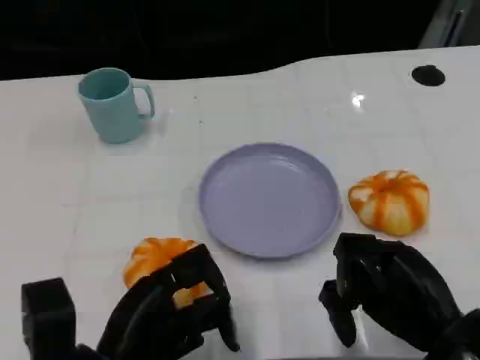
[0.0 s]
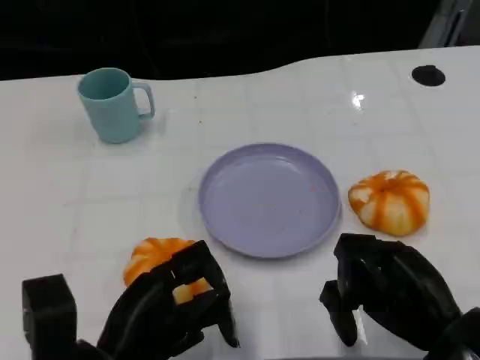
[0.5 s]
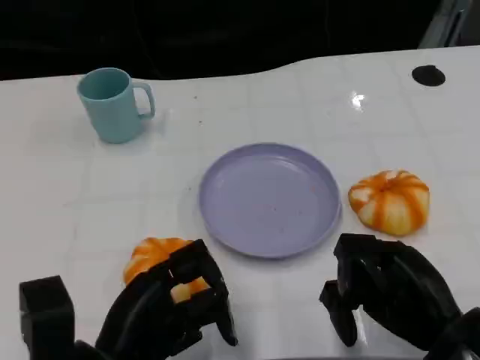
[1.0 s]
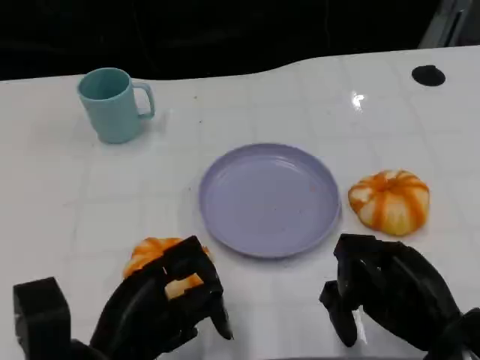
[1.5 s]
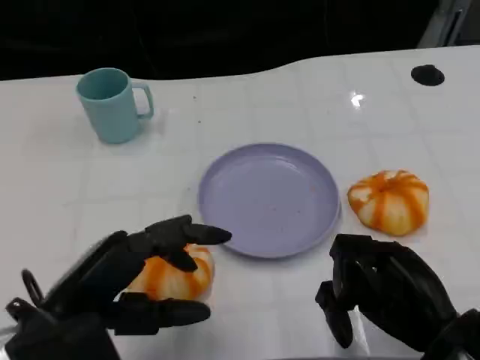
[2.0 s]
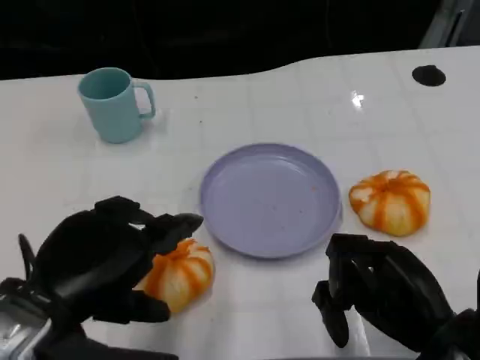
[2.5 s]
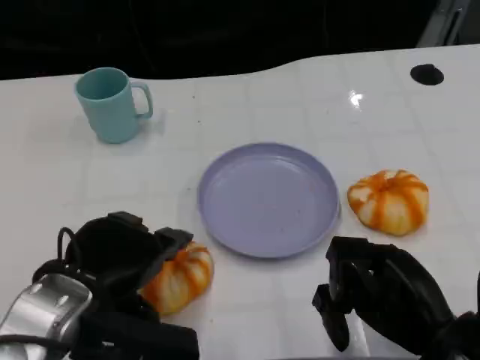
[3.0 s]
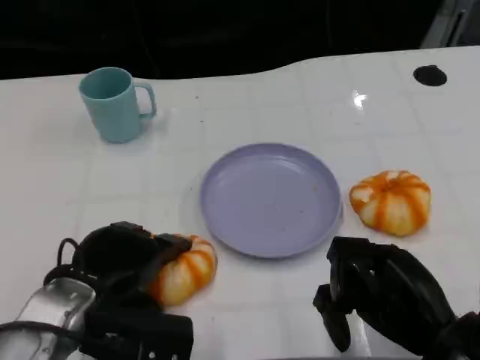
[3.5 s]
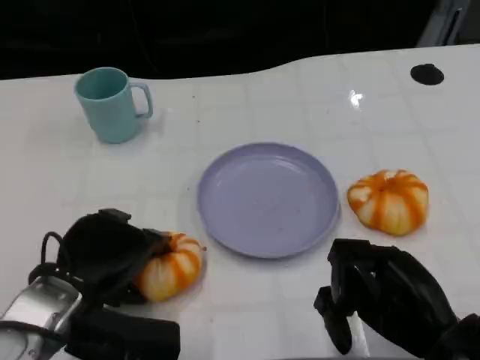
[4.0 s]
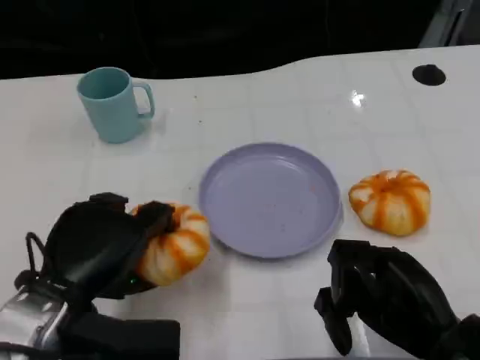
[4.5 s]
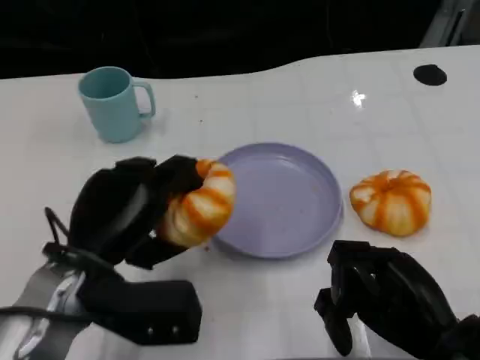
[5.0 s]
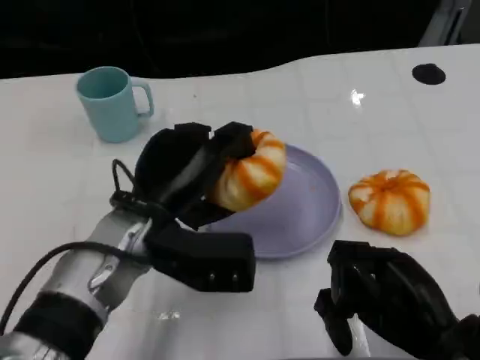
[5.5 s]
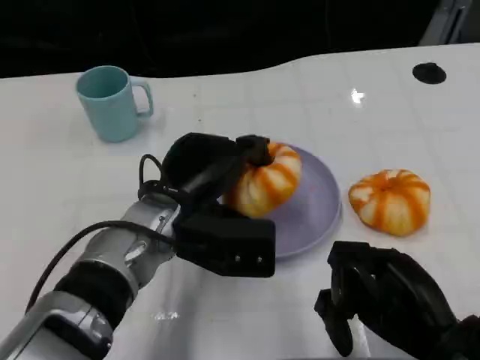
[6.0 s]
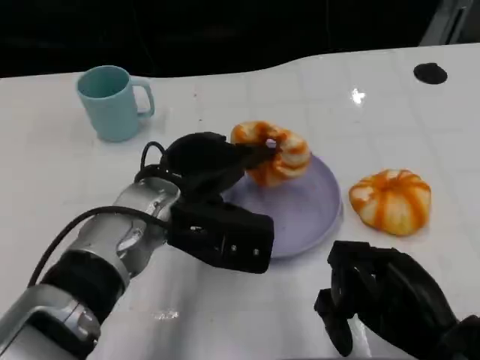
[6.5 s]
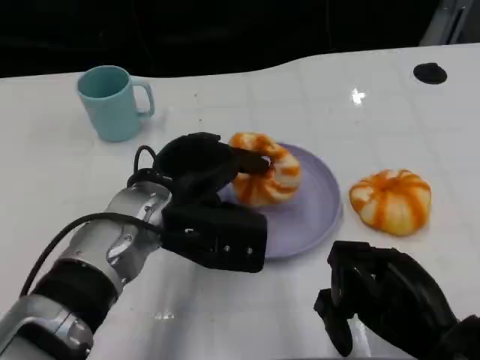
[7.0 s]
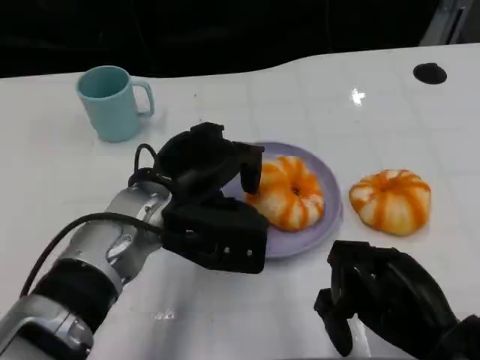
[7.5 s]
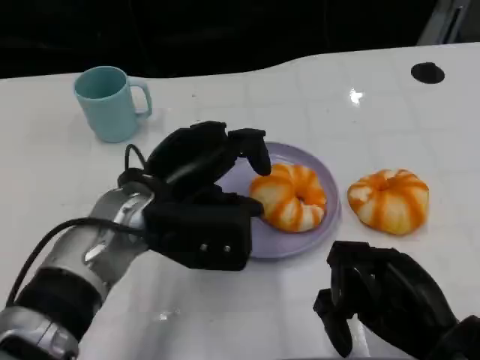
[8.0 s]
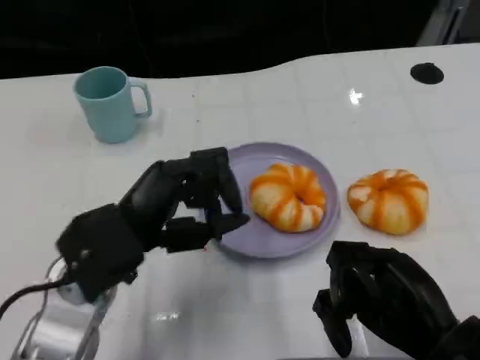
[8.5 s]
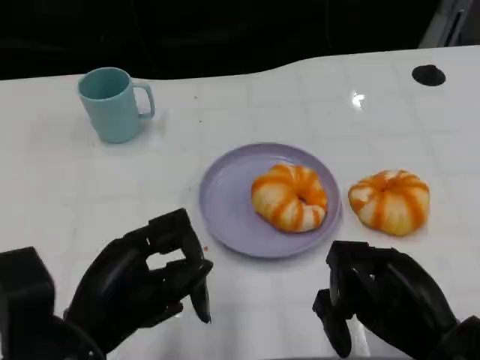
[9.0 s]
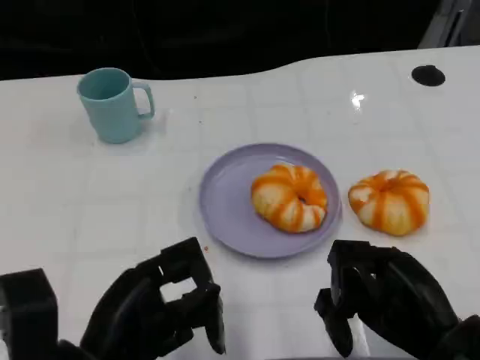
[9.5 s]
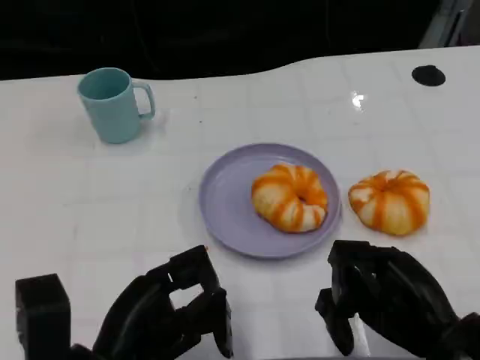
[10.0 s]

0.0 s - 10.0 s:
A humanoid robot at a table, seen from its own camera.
Task of the whole recording: Grasp the bread from the table and place it into the plate.
0.0 s - 2.0 s: The left hand is displaced upward by approximately 5 cm.
2.0 s - 4.0 s: The left hand travels forward by approximately 5 cm.
4.0 s - 6.0 s: The left hand travels to the right and forward by some 15 cm.
6.0 s - 8.0 s: The hands move only a little.
8.0 s - 10.0 s: The left hand goes about 15 cm backward and downward.

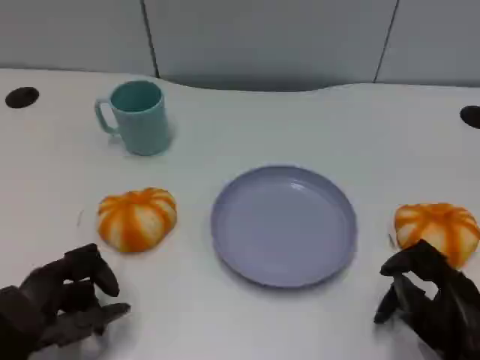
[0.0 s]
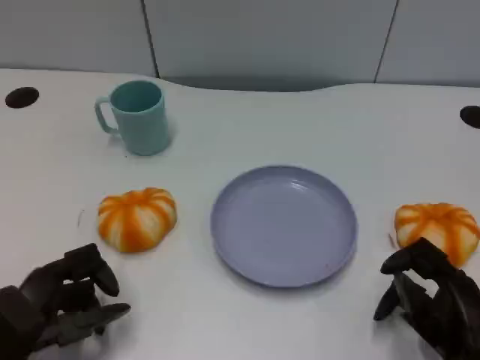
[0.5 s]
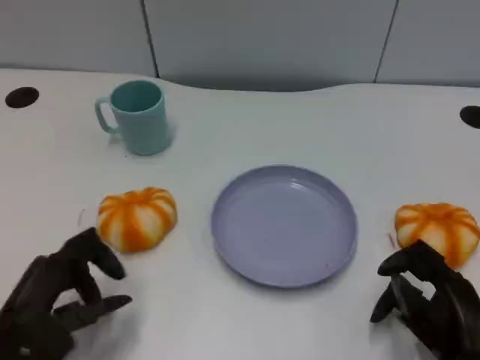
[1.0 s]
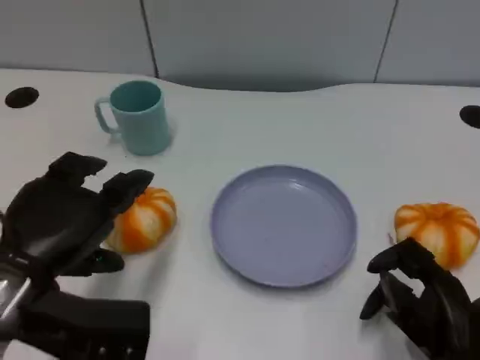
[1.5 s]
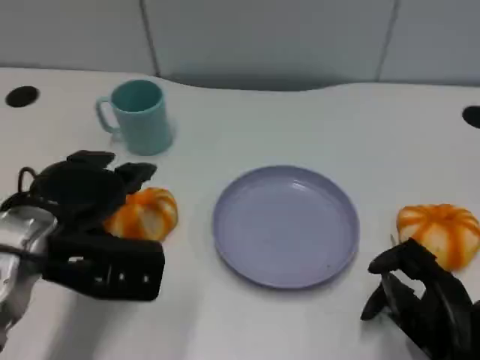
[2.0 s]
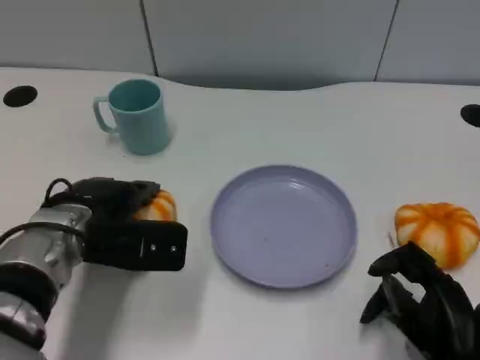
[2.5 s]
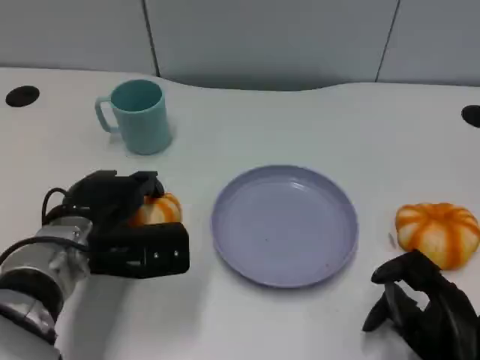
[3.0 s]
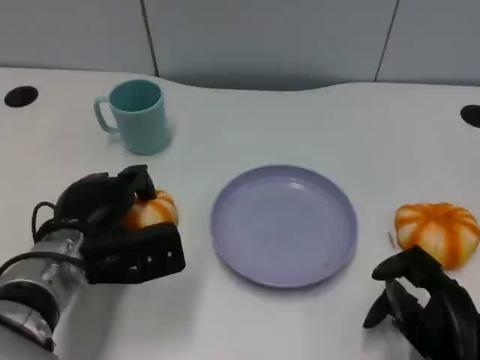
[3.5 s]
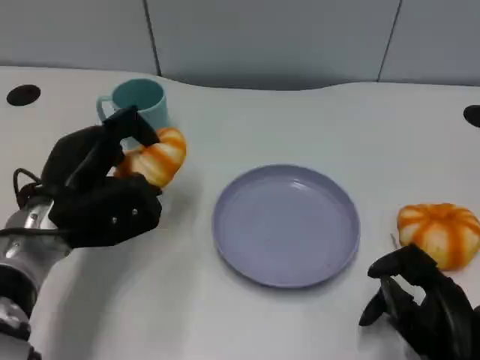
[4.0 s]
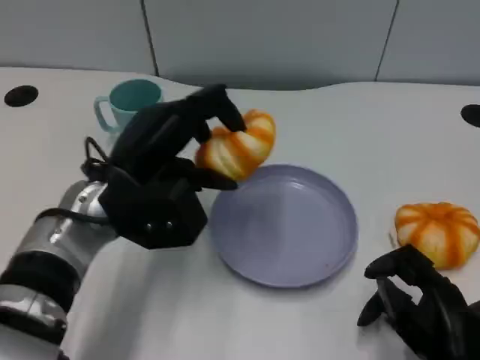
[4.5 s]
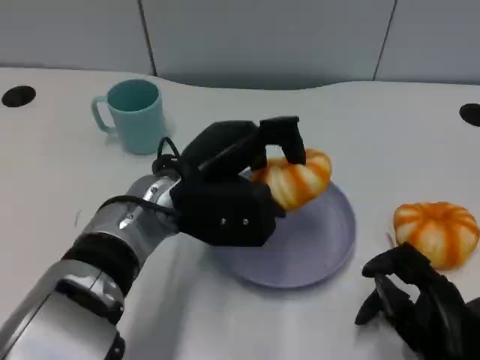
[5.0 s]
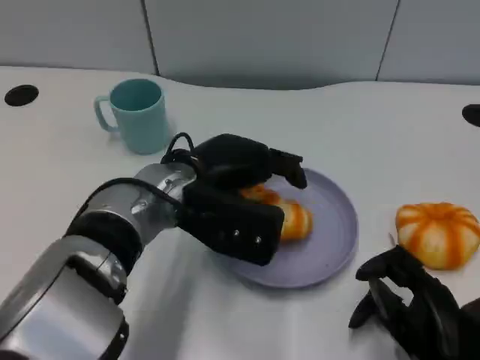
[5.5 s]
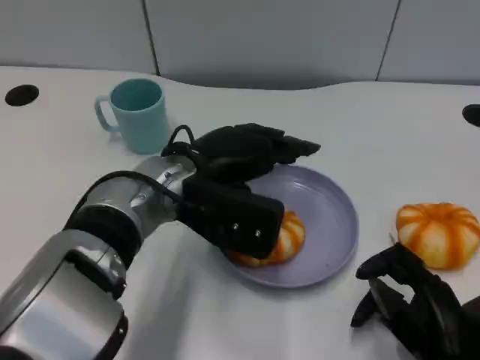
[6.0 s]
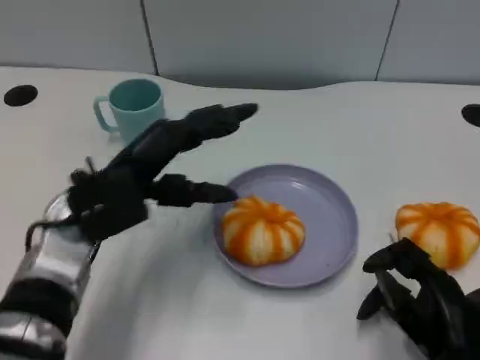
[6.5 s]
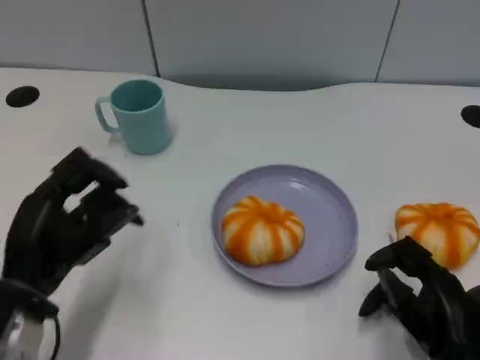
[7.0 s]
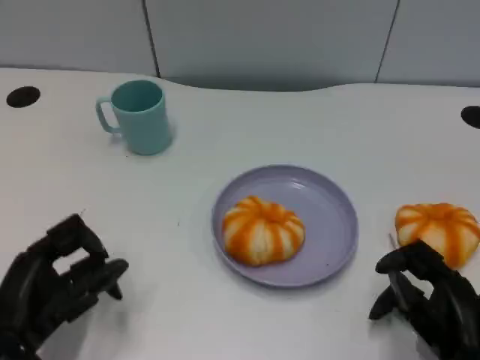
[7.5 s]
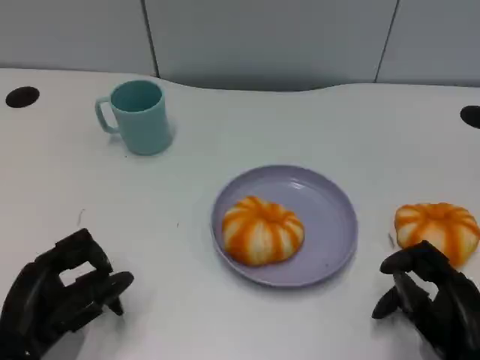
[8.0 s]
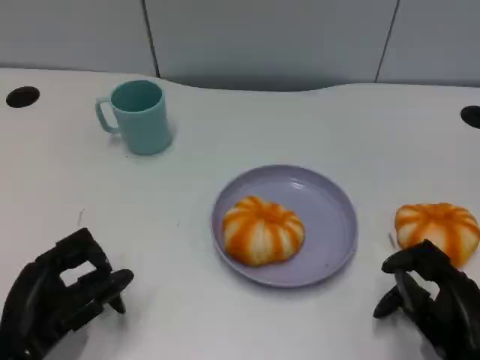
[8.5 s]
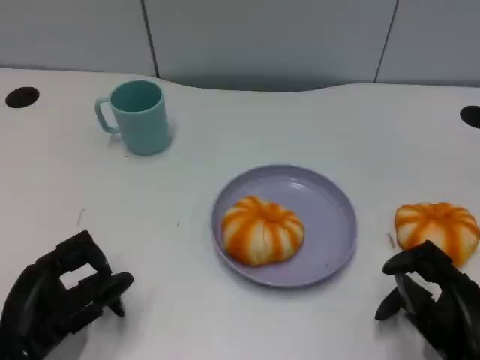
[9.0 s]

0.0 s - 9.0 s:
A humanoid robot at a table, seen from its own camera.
Task of the whole recording: Grasp the bread from the table and place it into the plate.
0.0 s - 2.0 s: The left hand is displaced forward and upward by approximately 15 cm.
2.0 s - 4.5 s: The left hand goes roughly 5 cm to the right.
4.5 s - 7.0 s: The left hand goes some 15 cm to the left, backward and downward.
7.0 s - 9.0 s: The hands move only a little.

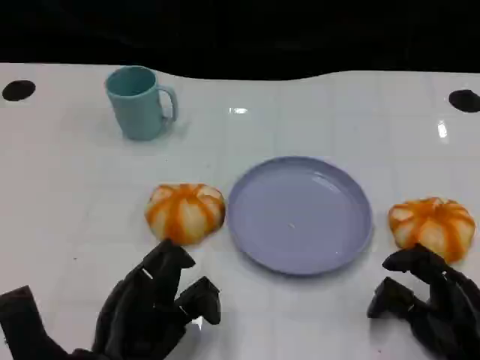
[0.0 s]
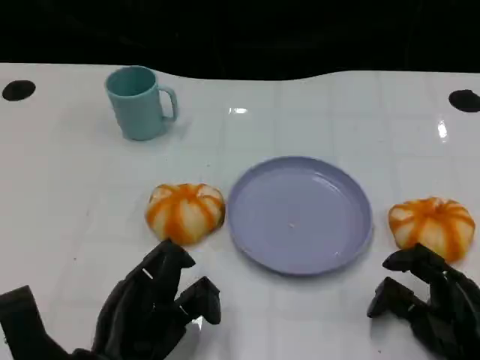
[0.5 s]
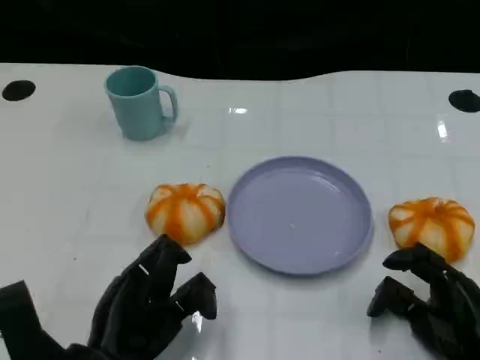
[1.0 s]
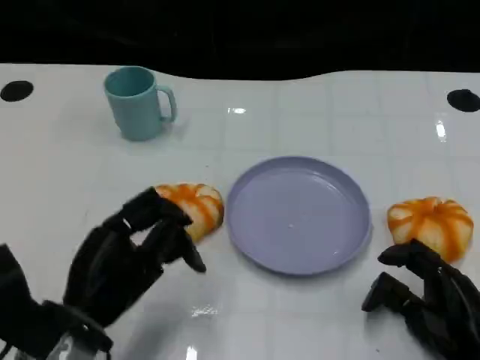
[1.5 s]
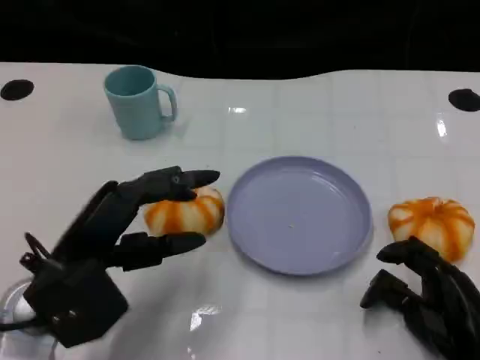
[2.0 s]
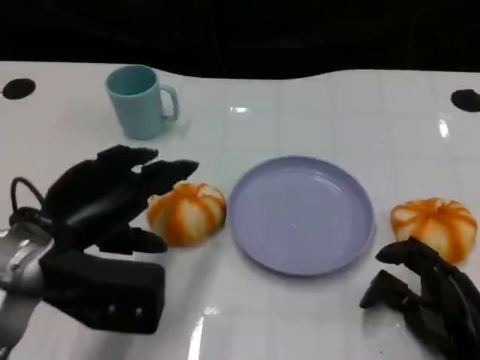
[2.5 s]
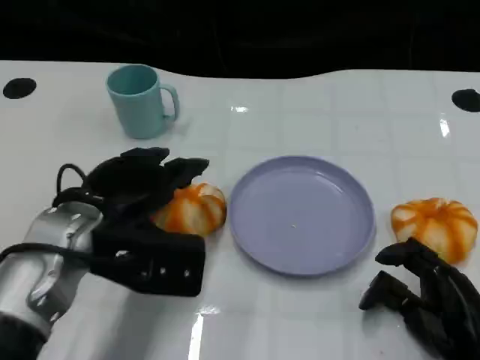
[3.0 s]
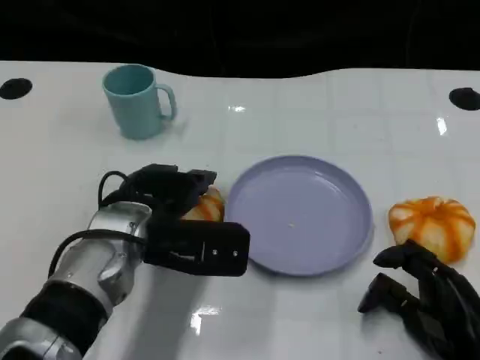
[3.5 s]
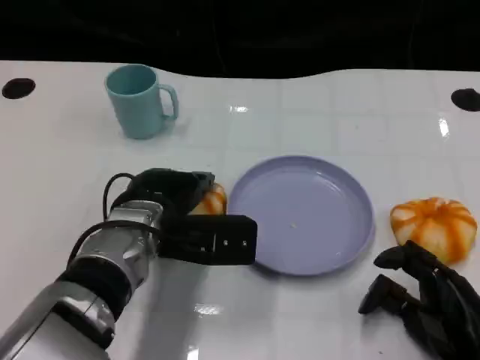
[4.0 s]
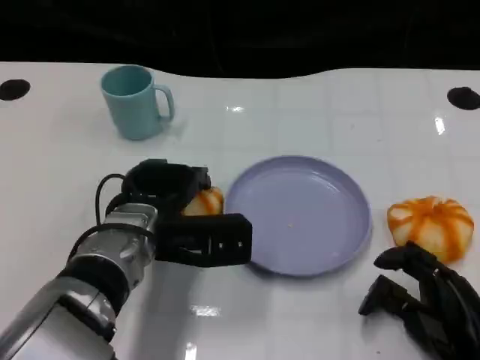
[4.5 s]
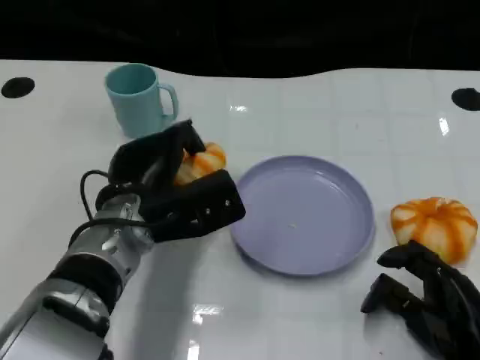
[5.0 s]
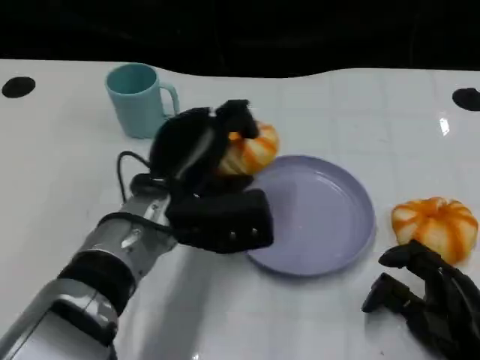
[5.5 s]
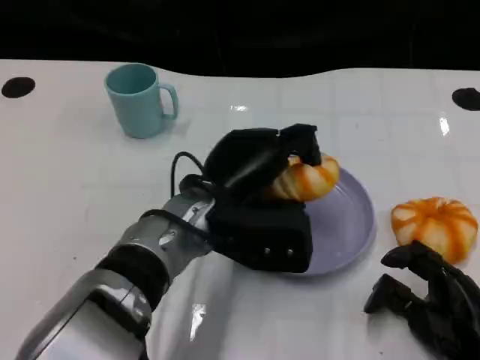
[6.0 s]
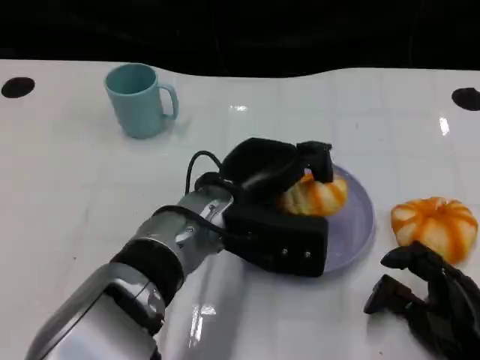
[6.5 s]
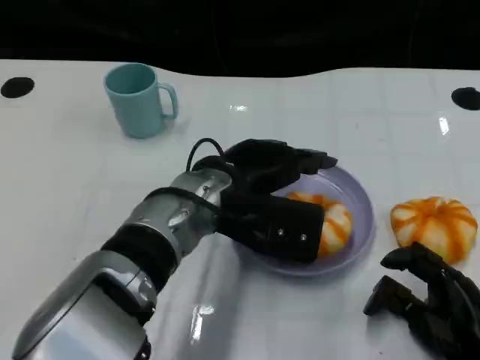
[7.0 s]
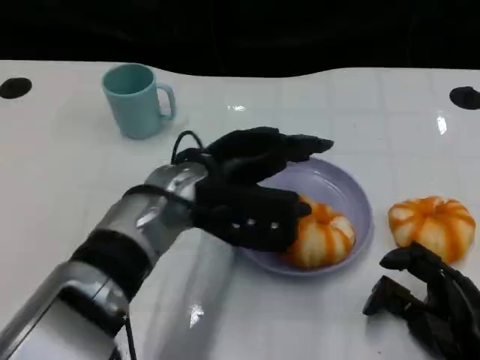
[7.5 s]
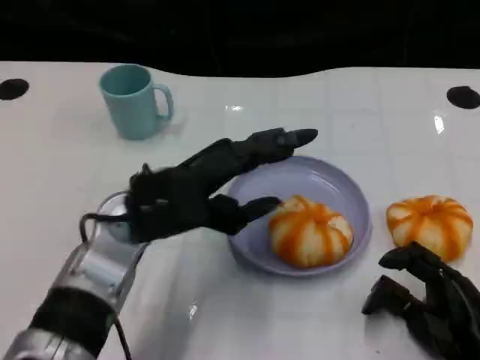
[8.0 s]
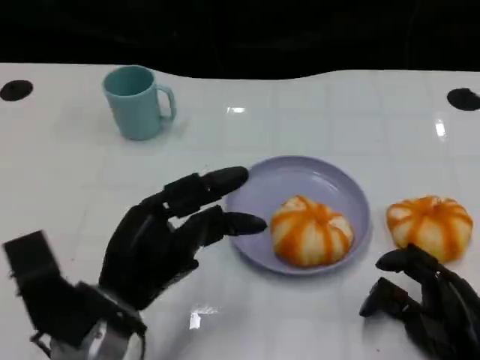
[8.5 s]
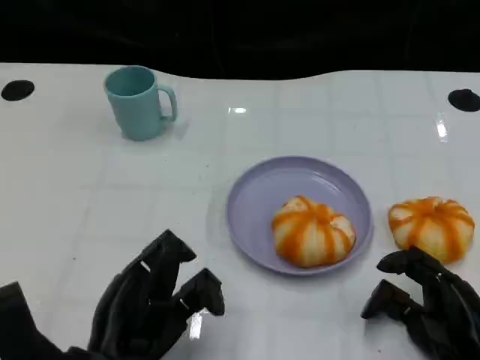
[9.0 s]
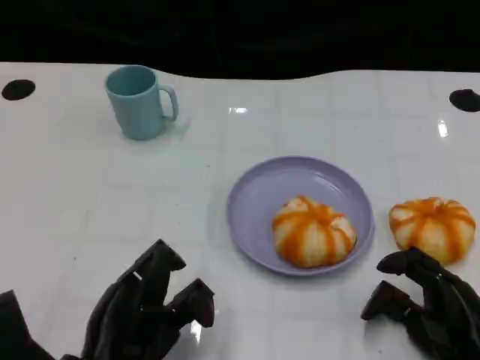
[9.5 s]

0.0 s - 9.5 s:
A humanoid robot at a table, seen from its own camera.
Task of the whole recording: Grasp the bread from the table and place it into the plate.
0.0 s - 2.0 s: The left hand moves upward and forward, some 10 cm.
2.0 s - 4.0 s: The left hand moves to the right and forward, about 10 cm.
7.5 s - 9.5 s: The left hand heads backward, to the left and downward, covering about 20 cm.
